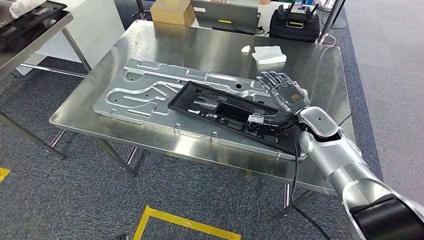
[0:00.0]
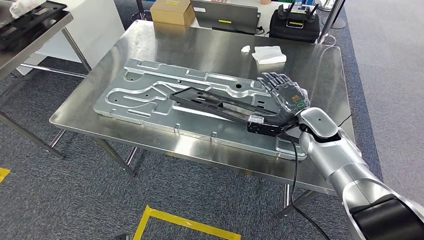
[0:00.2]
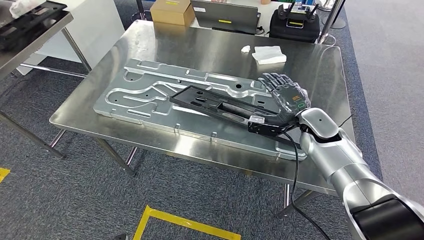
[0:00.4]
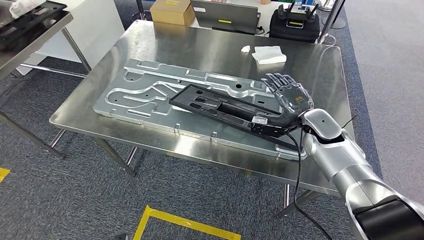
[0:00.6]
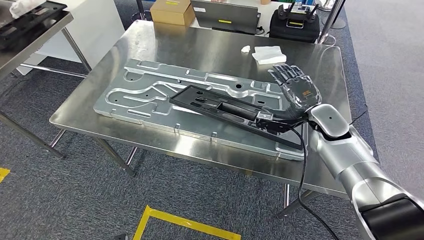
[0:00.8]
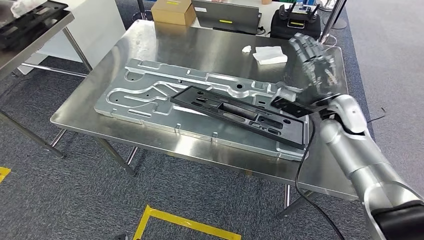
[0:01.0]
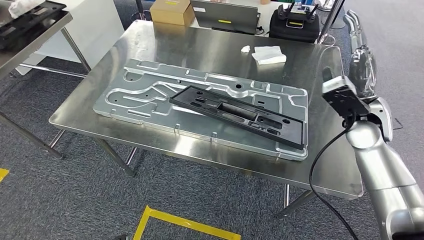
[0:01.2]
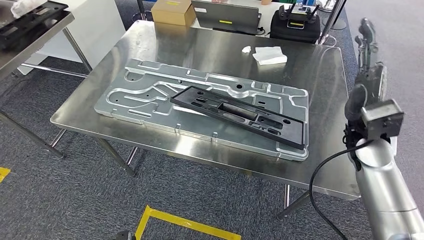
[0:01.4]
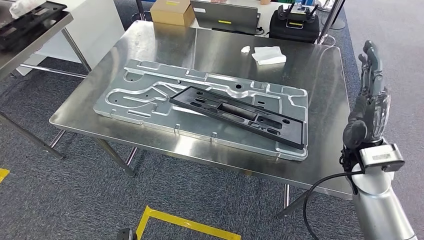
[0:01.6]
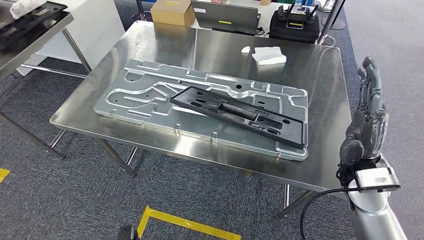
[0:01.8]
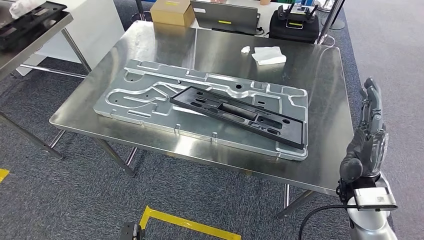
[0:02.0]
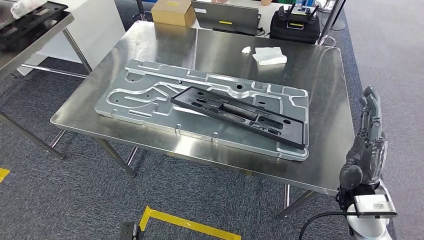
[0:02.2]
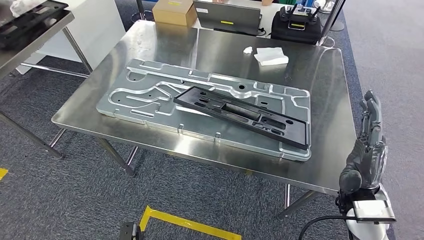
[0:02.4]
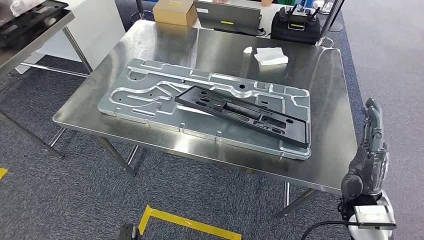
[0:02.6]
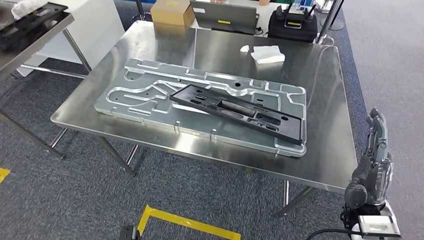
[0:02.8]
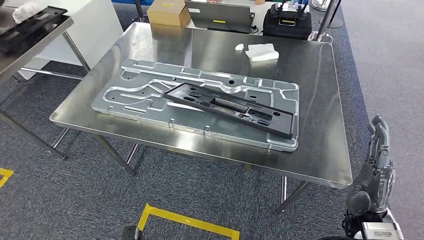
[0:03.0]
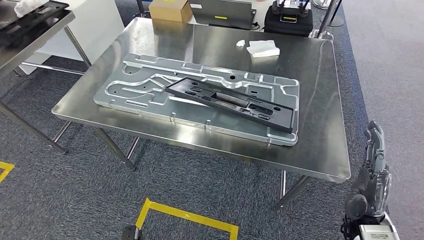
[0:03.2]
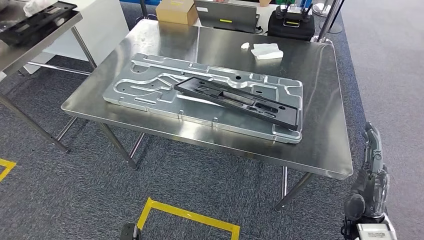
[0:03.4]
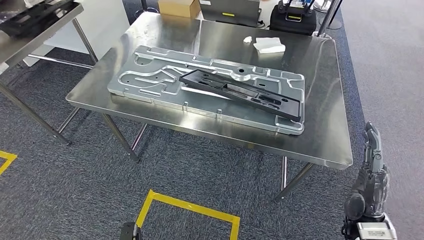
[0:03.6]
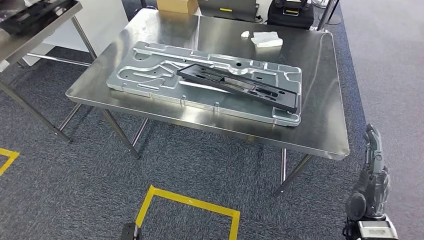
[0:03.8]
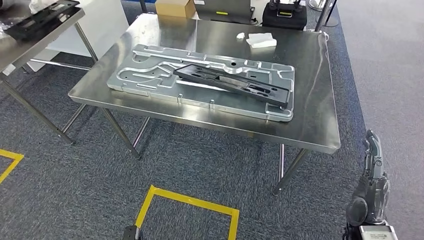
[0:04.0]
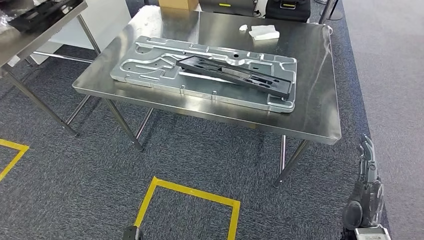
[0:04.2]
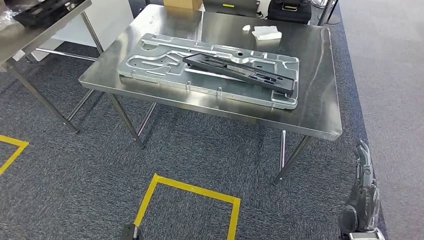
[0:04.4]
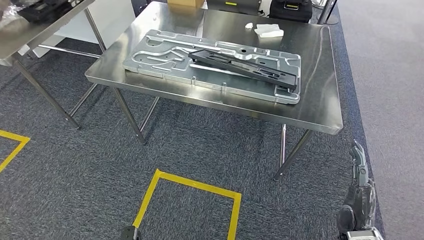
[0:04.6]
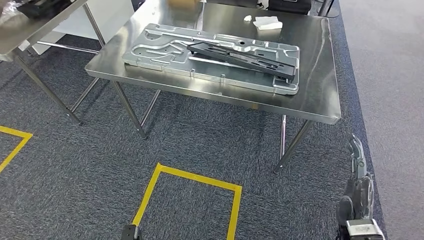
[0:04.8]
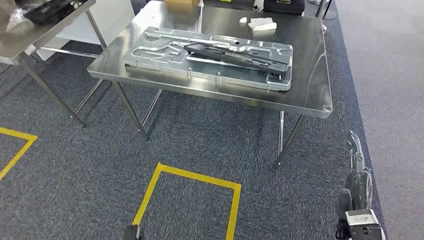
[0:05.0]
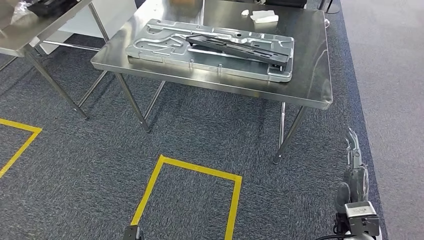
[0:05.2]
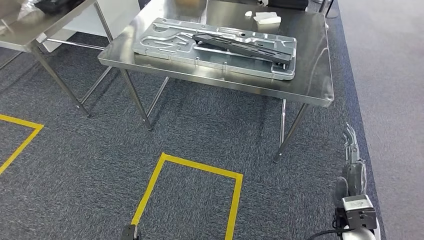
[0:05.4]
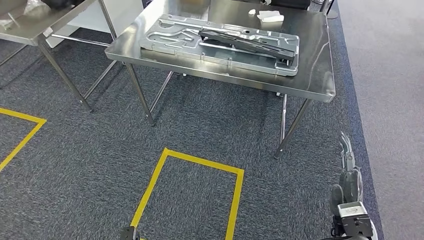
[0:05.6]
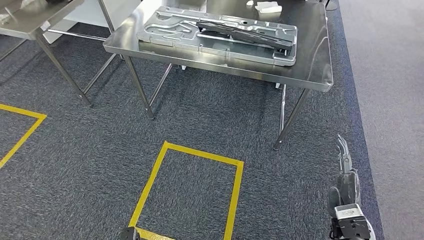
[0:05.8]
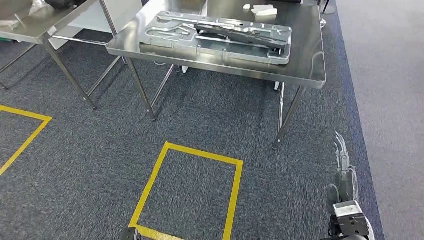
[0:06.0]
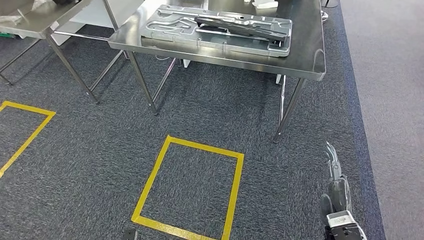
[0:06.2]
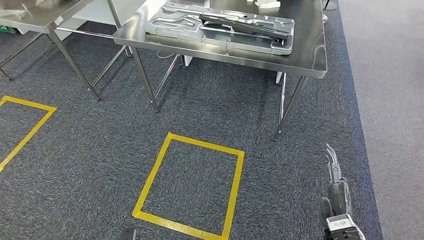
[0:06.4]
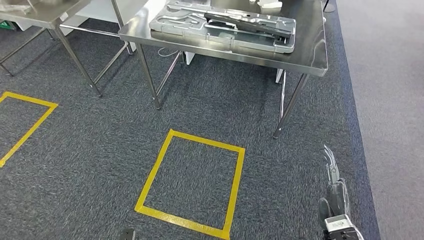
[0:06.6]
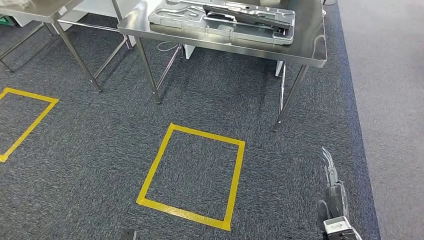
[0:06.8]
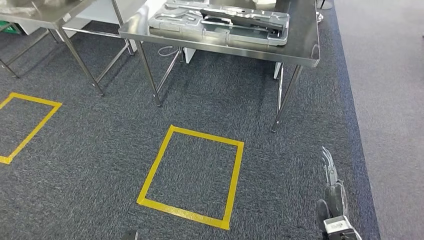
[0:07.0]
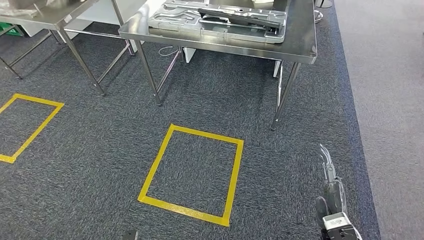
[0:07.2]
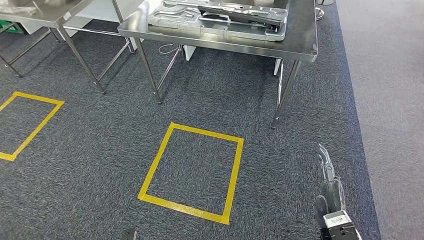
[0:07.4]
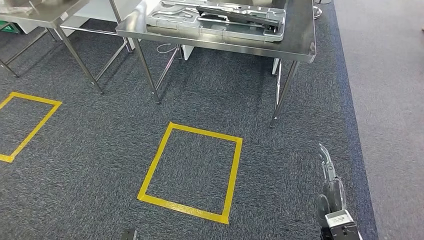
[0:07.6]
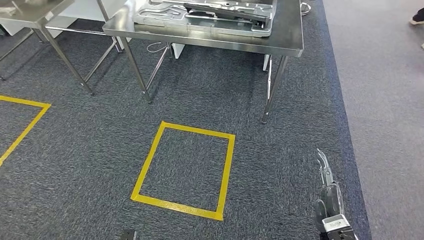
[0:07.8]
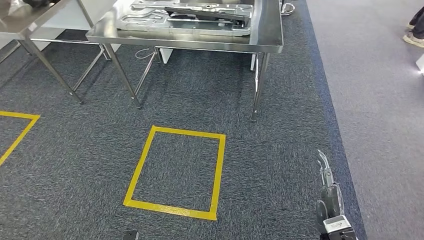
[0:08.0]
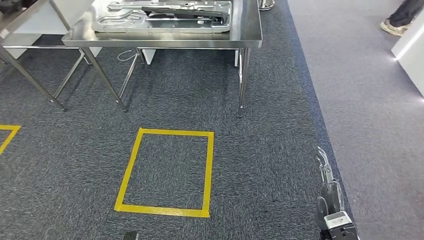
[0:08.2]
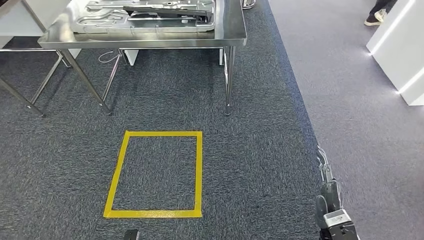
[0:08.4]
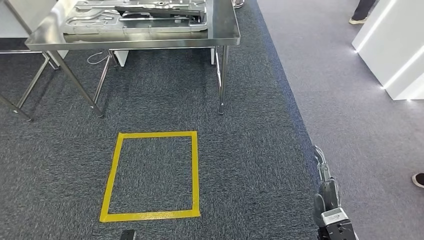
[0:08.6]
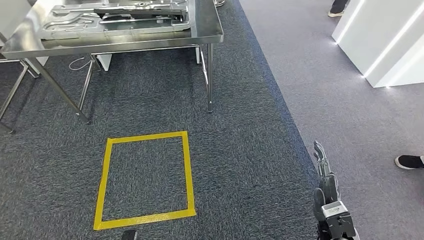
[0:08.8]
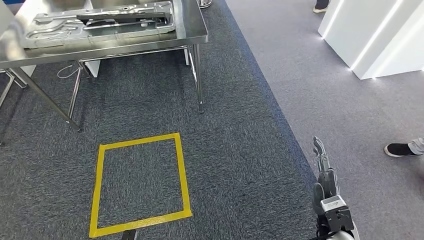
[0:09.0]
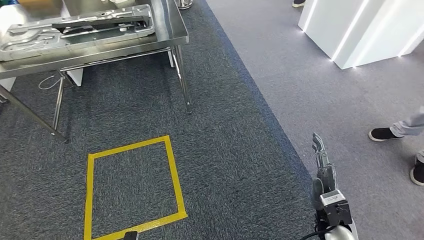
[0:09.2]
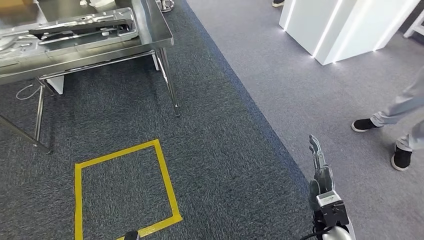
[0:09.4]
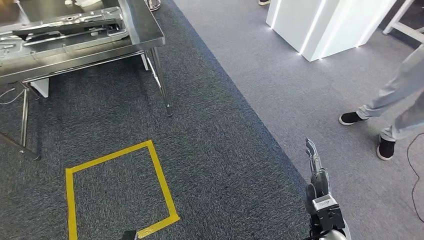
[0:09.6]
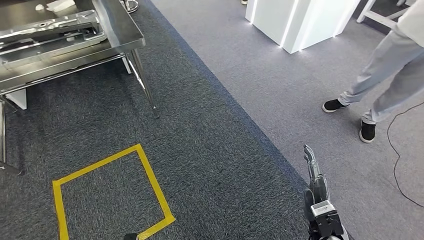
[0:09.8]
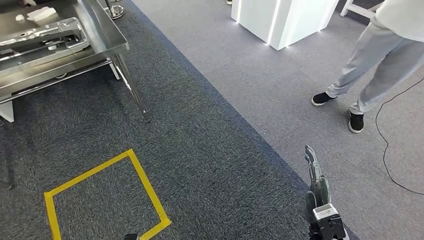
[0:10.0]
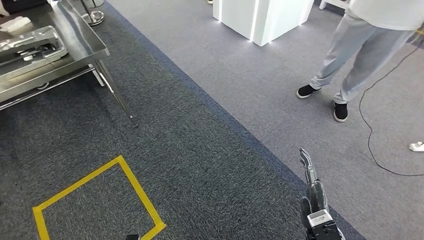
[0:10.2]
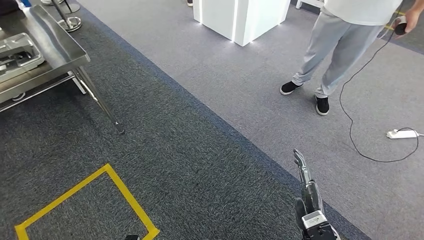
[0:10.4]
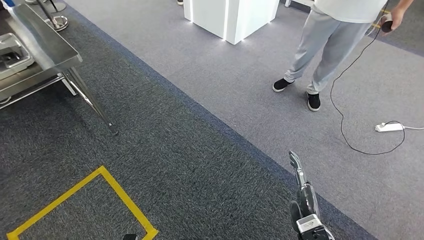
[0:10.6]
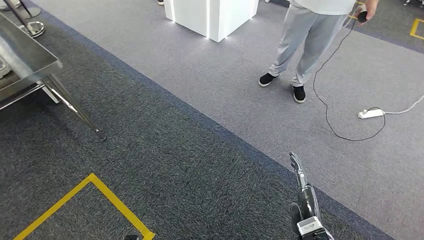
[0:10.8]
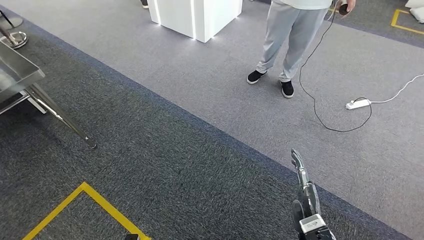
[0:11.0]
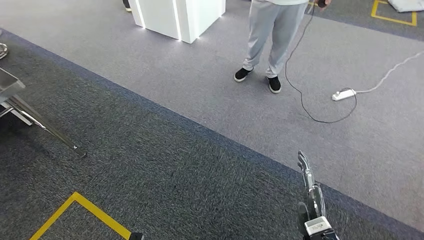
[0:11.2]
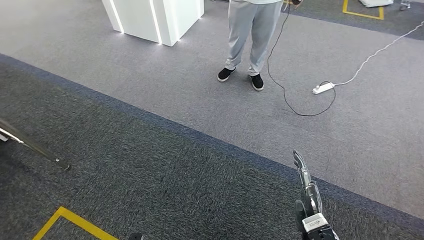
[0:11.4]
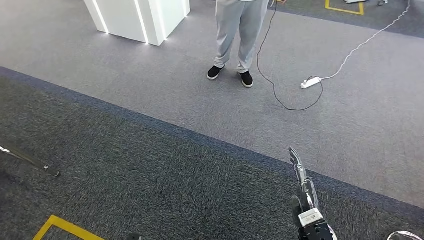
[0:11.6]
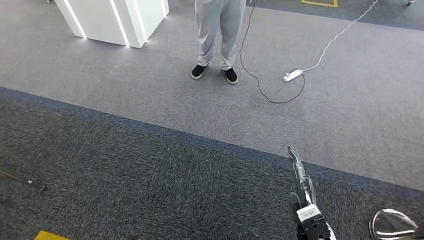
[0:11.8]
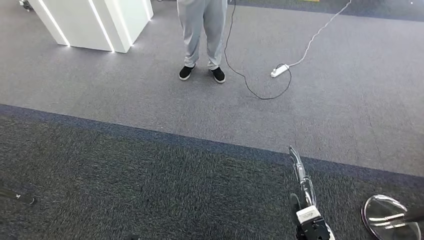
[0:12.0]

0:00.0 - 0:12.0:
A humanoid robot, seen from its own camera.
Step, 0:00.0 - 0:02.8: Insert the large material into the corresponding slot on the workbench.
0:00.0 - 0:01.6: The right hand goes roughly 15 cm backward and to the right.

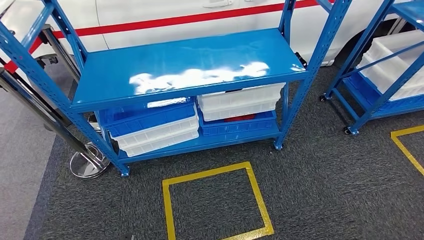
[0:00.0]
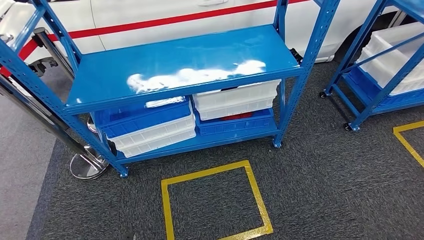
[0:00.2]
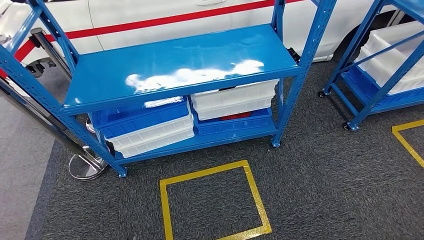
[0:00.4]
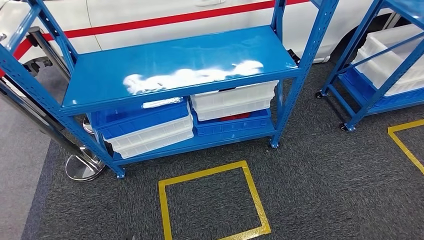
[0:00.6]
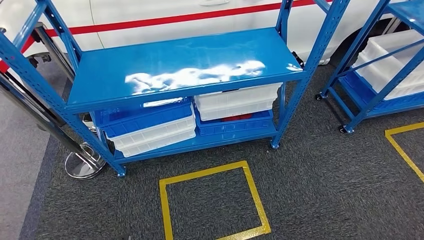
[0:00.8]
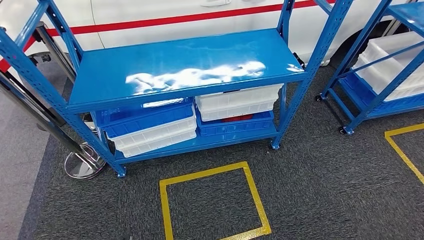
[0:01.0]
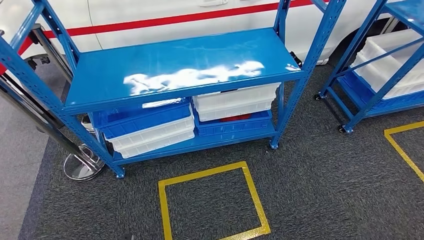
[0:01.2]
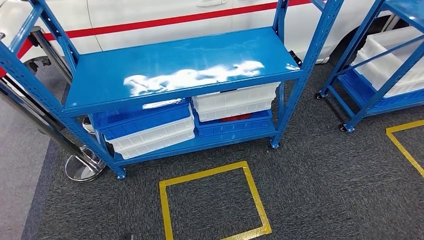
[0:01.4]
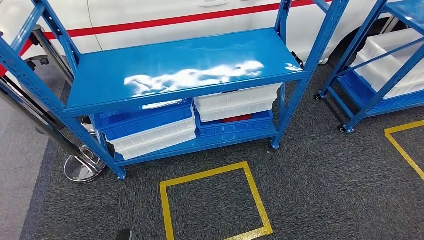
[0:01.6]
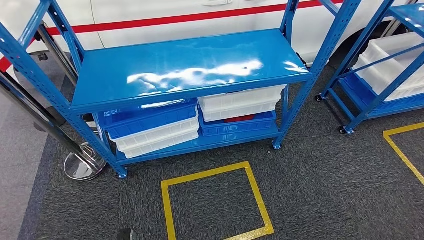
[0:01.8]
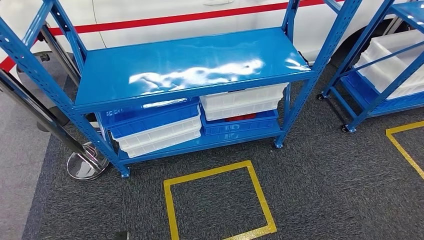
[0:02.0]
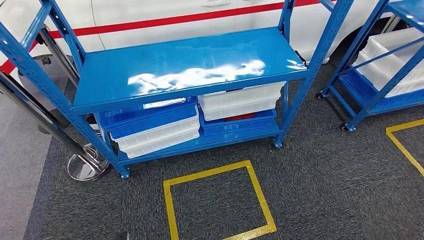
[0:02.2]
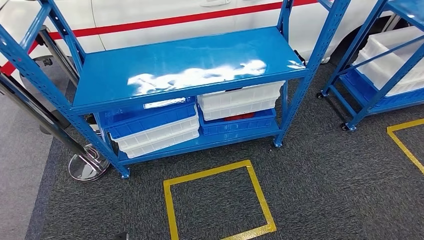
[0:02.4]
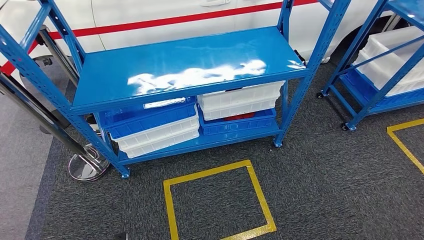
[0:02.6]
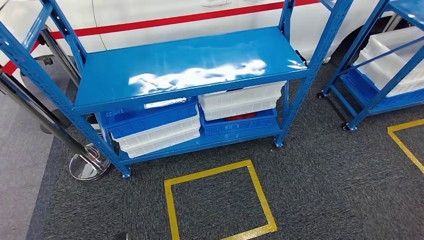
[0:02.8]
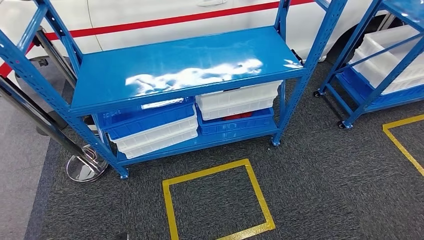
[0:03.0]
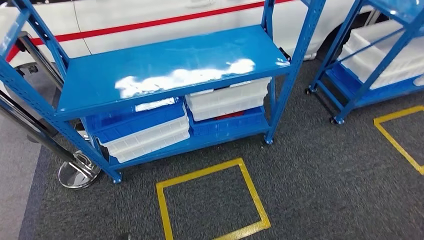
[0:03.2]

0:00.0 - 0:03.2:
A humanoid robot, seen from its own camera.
Step, 0:00.0 - 0:03.2: Return to the initial position at the shelf.

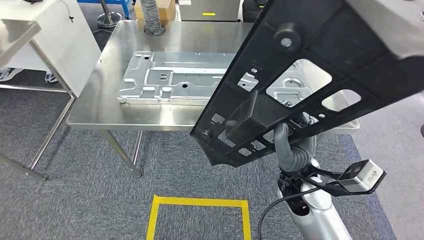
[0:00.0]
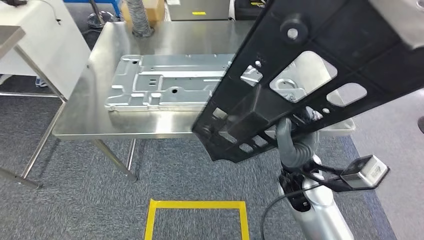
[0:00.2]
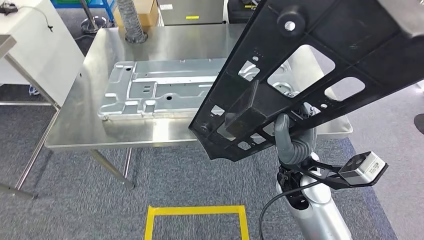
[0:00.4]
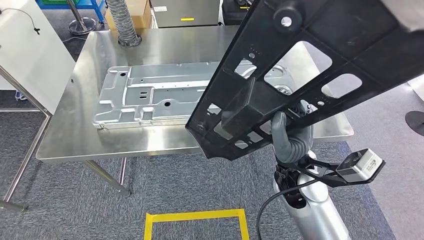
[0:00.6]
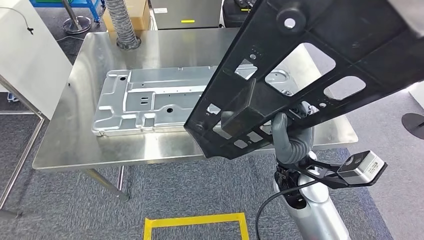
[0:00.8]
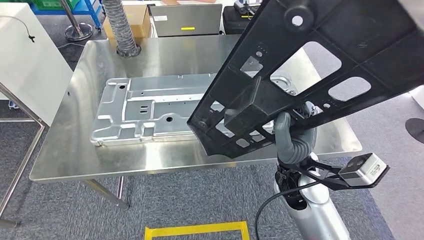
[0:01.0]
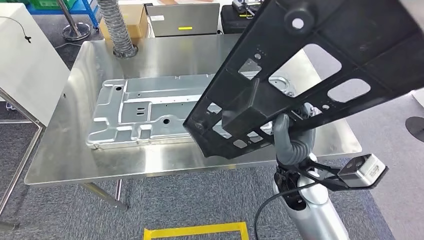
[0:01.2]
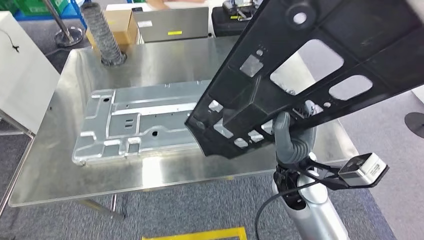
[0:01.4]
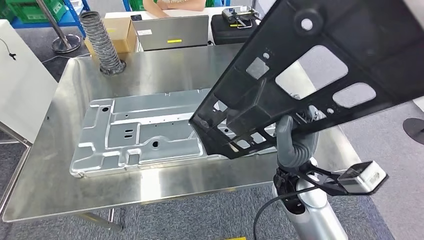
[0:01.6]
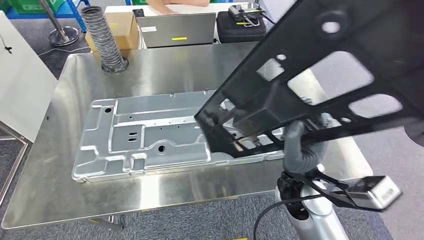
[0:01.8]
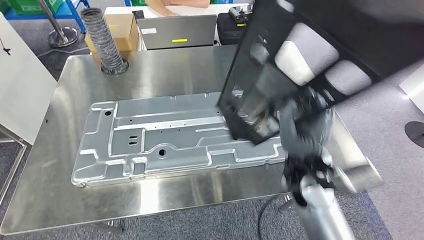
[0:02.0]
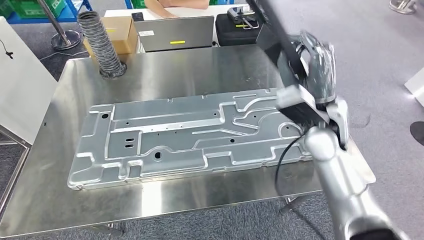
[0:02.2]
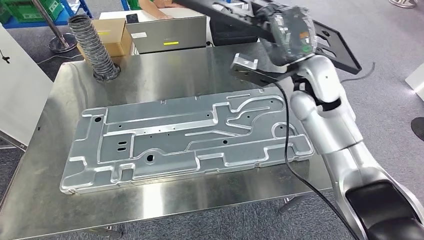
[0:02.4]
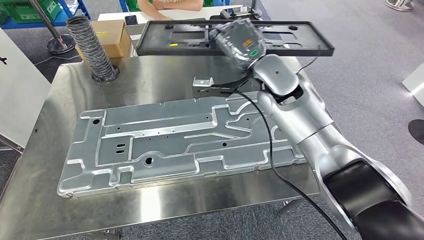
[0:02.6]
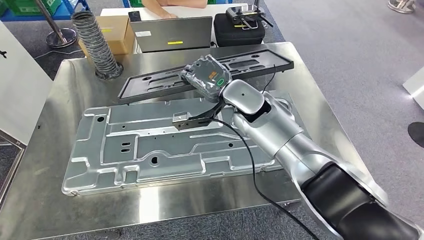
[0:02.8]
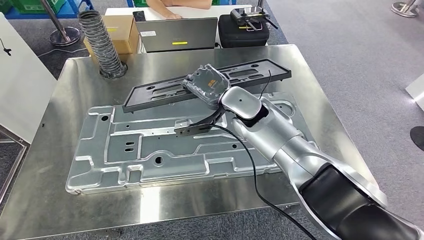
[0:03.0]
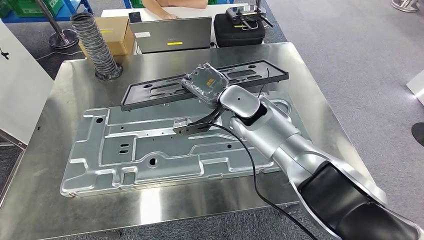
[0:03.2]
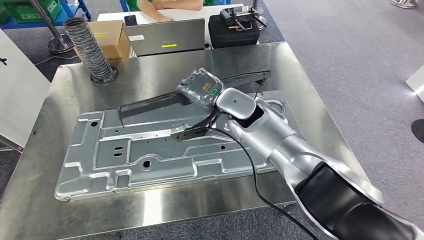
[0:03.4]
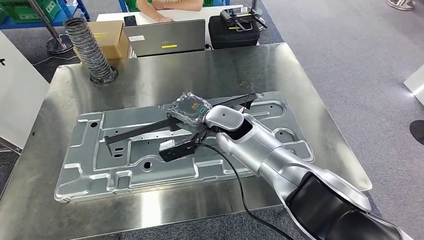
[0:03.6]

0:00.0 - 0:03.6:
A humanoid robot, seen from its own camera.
Step, 0:00.0 - 0:02.4: Move the large material to the workbench.
